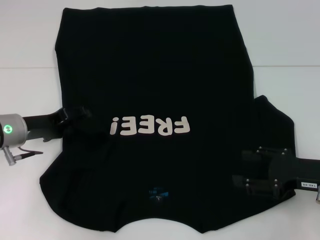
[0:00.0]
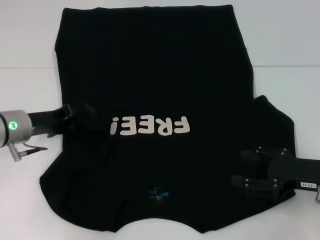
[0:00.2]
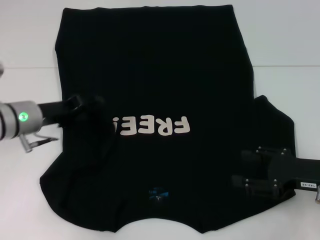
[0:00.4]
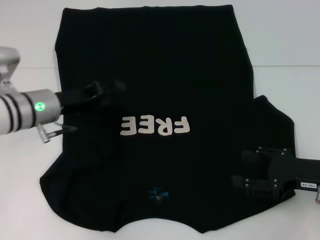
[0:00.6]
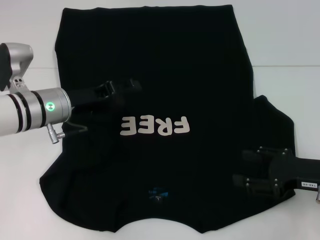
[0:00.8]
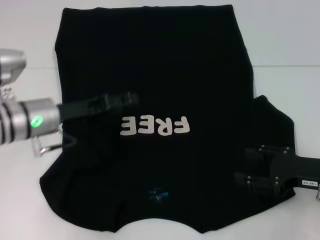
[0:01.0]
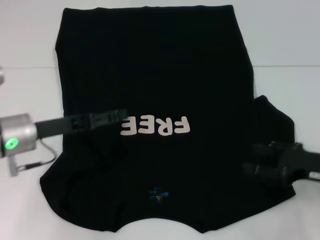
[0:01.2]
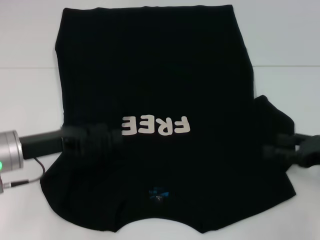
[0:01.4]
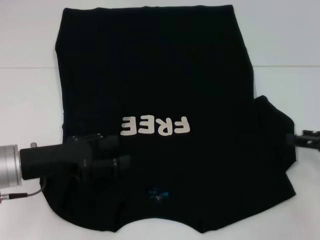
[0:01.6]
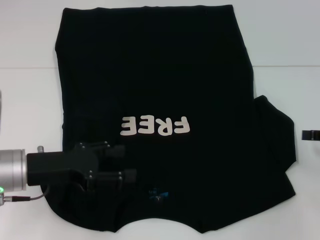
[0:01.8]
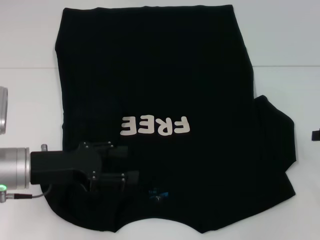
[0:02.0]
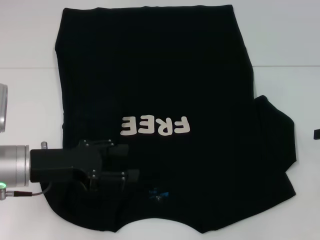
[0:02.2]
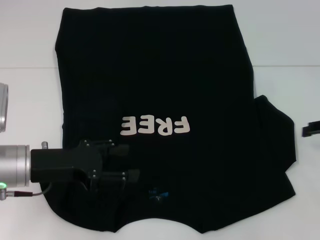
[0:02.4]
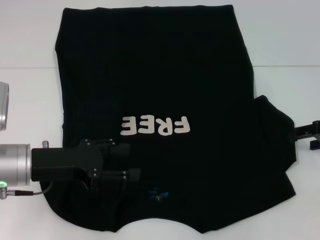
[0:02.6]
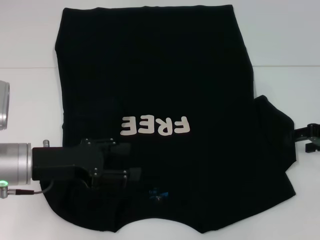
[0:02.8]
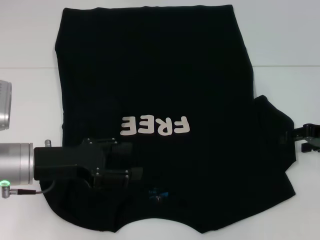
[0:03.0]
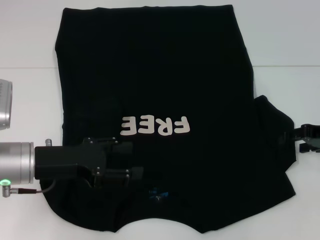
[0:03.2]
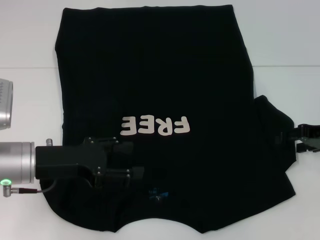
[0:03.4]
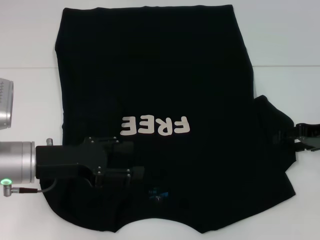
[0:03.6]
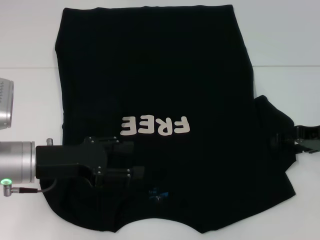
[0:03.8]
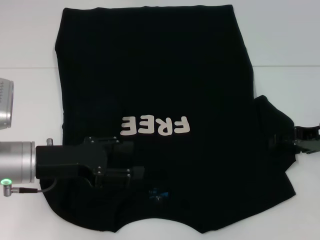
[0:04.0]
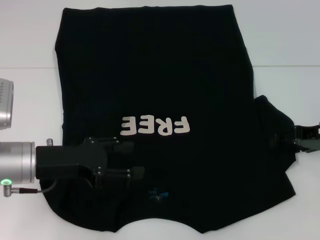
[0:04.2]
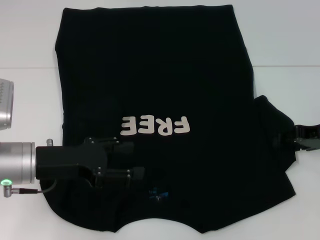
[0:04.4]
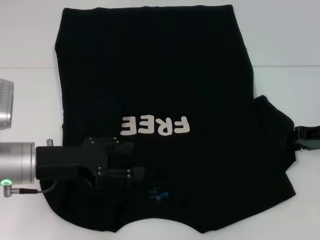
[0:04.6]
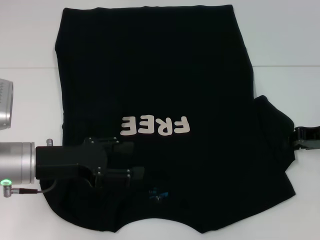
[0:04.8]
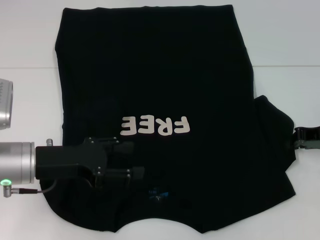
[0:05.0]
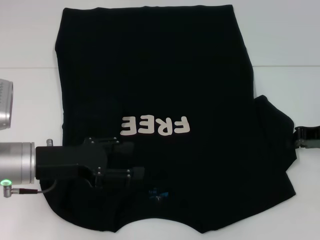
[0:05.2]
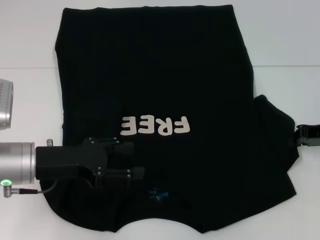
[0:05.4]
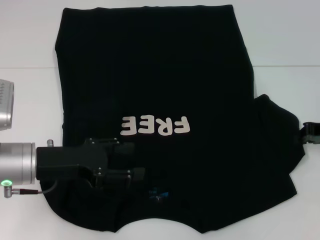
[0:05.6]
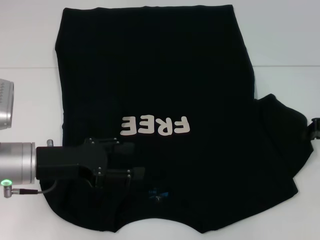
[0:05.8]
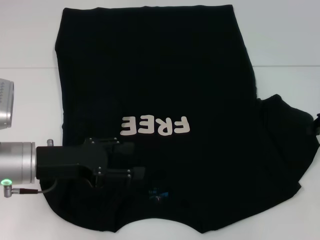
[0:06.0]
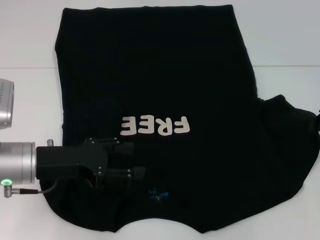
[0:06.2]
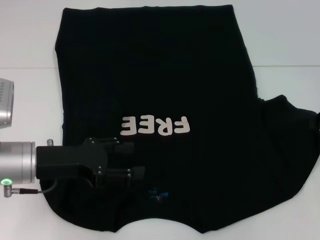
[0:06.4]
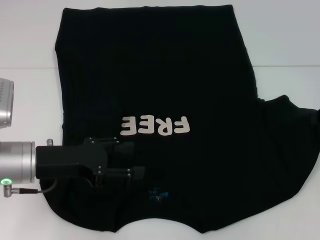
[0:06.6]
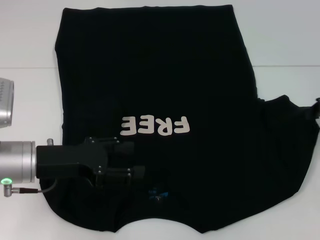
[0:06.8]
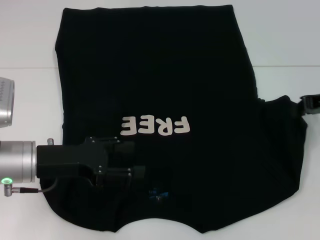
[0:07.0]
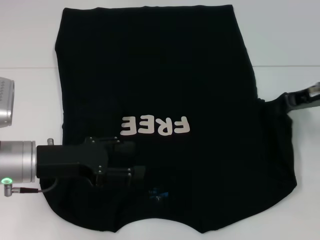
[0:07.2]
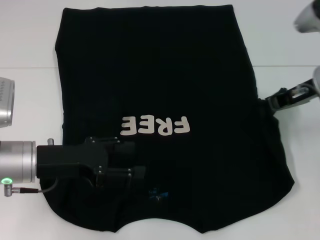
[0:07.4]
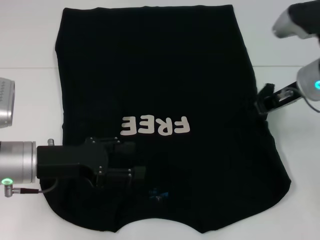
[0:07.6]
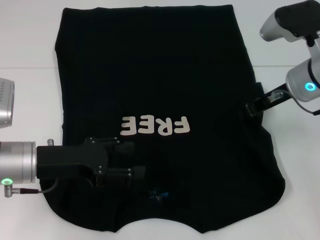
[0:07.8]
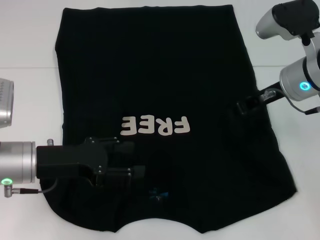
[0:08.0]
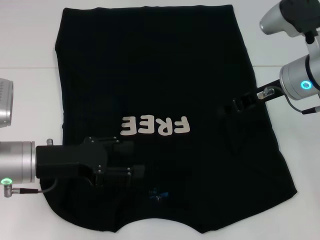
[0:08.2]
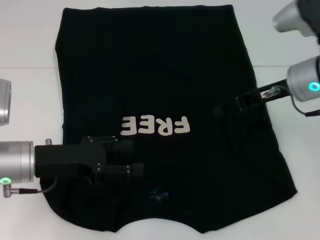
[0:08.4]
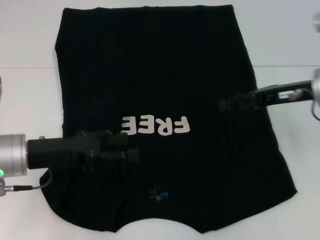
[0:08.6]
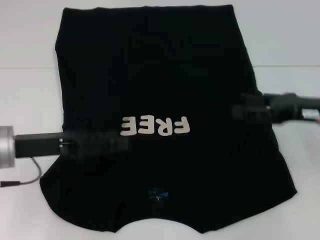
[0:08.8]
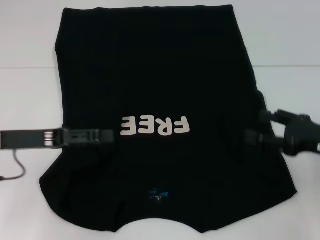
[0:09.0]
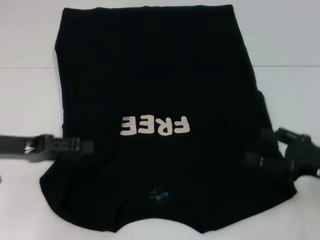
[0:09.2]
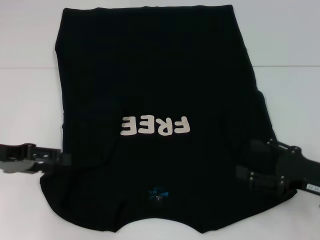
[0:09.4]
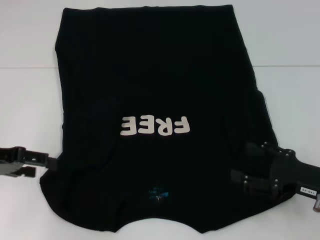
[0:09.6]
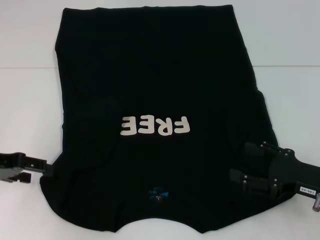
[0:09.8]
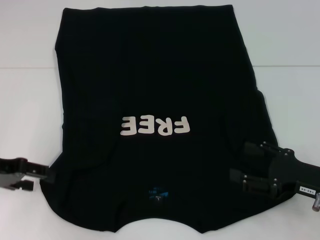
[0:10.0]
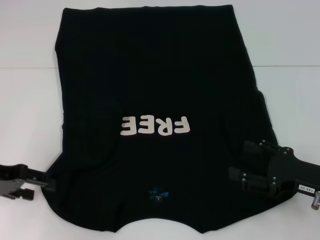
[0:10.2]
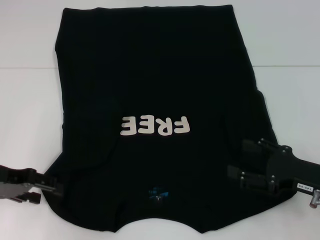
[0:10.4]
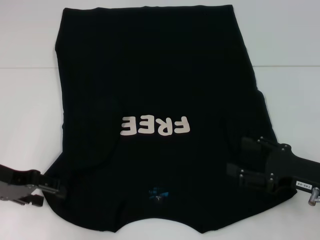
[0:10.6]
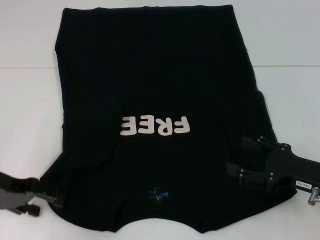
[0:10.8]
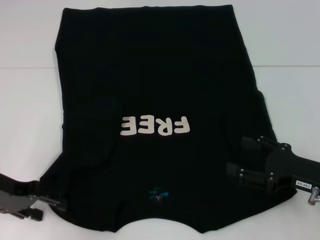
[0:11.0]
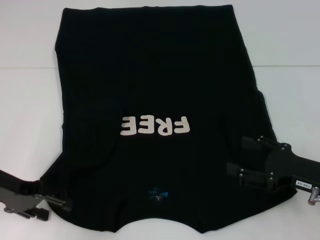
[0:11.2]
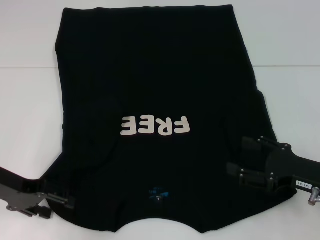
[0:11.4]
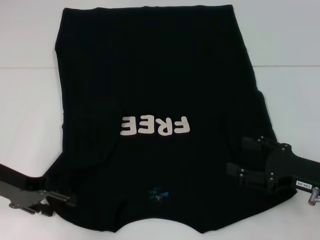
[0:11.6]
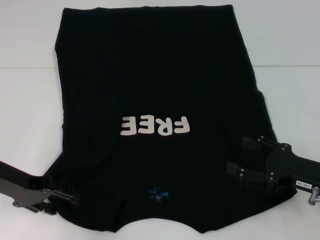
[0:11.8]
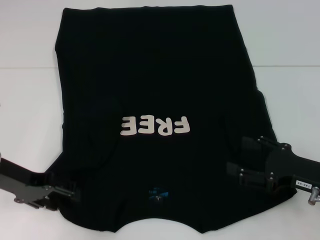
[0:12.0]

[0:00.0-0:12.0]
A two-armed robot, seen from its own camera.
Step, 0:01.4 to 0:08.4: Fold the bottom right sleeve with your right hand.
0:00.0 to 0:01.6: The right gripper shifts approximately 5 cm to the right; the left gripper shifts approximately 5 cm backward.
0:01.6 to 0:03.0: The right gripper moves forward, some 5 cm.
0:03.0 to 0:04.4: There are only small adjustments of the grippers.
0:04.4 to 0:06.0: The right gripper closes up.
0:06.0 to 0:07.6: The right gripper goes about 10 cm to the left.
0:07.6 to 0:09.0: The left gripper moves approximately 5 cm; the right gripper moves backward, to the right and downward, about 15 cm, and opens.
0:09.0 to 0:10.4: The right gripper changes place by roughly 5 cm.
0:10.4 to 0:12.0: The grippers make only small movements.

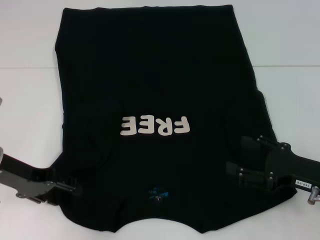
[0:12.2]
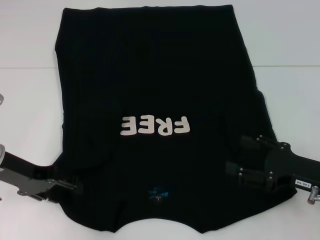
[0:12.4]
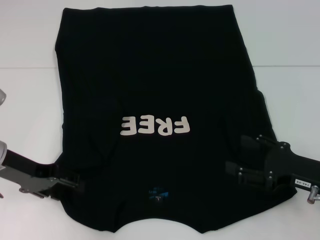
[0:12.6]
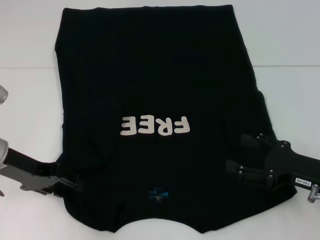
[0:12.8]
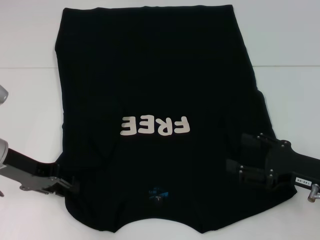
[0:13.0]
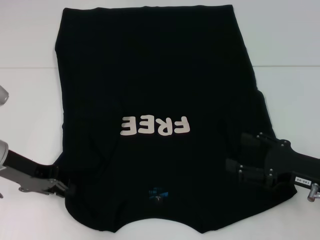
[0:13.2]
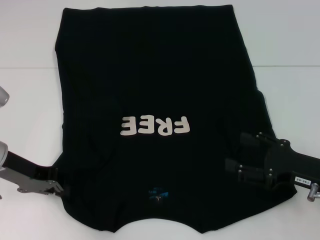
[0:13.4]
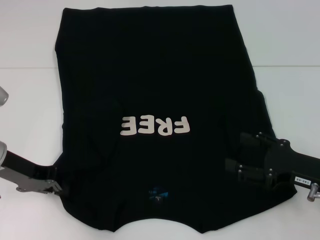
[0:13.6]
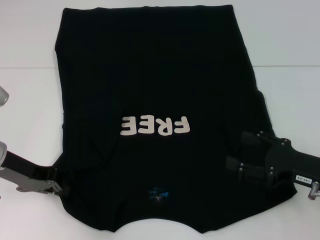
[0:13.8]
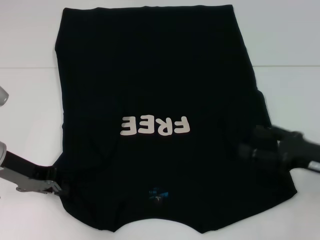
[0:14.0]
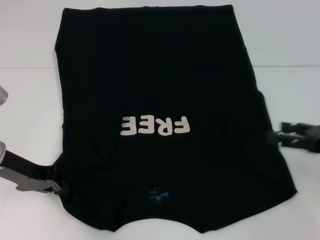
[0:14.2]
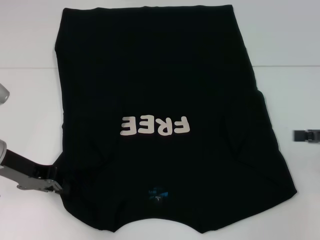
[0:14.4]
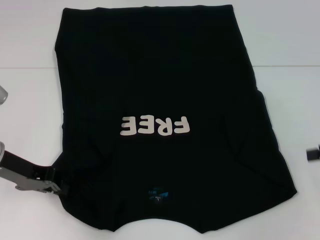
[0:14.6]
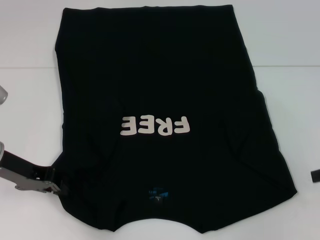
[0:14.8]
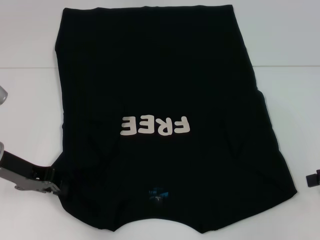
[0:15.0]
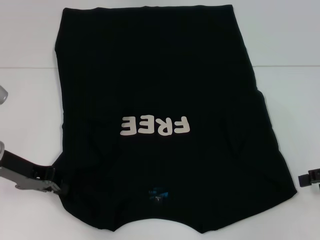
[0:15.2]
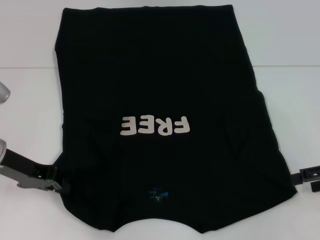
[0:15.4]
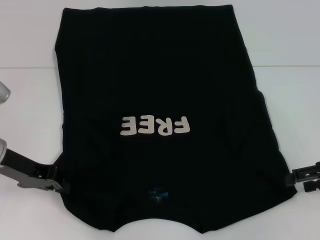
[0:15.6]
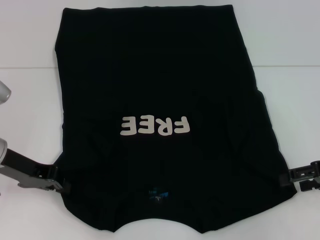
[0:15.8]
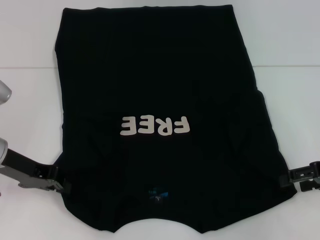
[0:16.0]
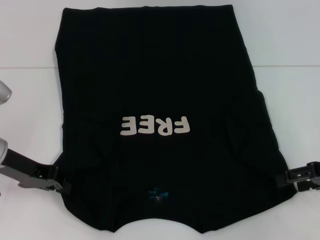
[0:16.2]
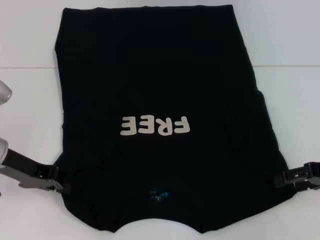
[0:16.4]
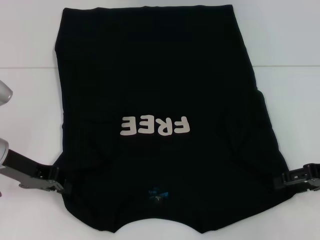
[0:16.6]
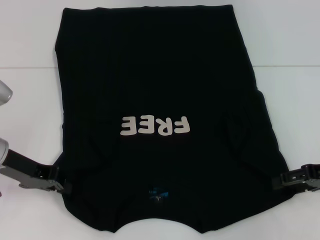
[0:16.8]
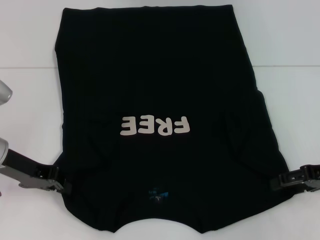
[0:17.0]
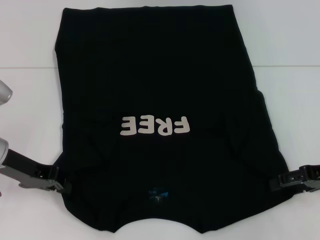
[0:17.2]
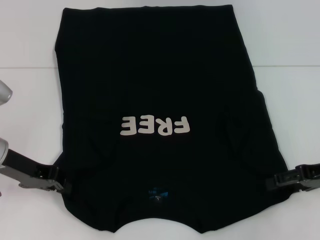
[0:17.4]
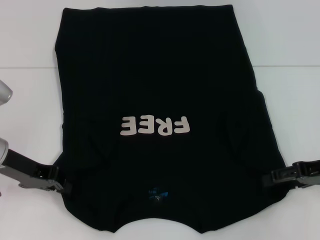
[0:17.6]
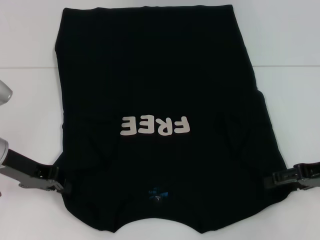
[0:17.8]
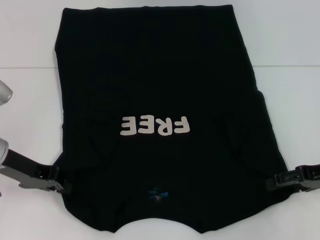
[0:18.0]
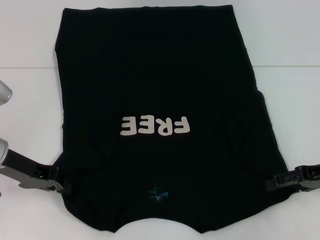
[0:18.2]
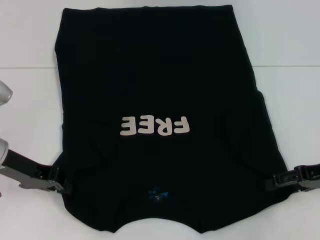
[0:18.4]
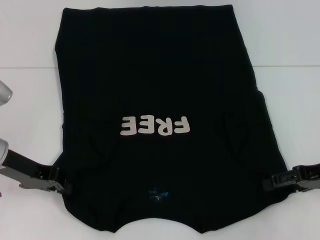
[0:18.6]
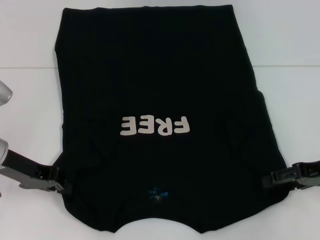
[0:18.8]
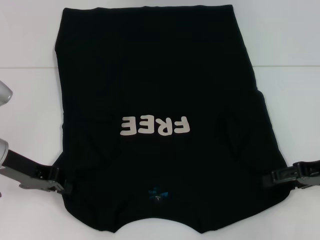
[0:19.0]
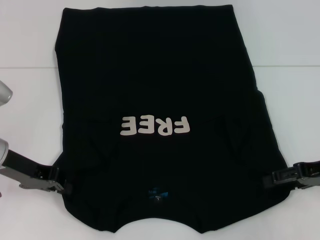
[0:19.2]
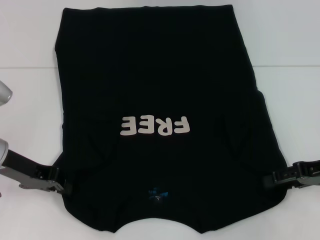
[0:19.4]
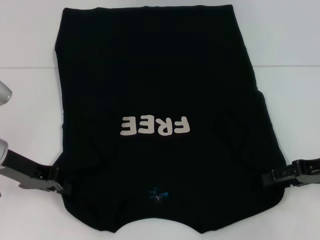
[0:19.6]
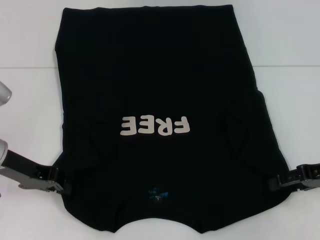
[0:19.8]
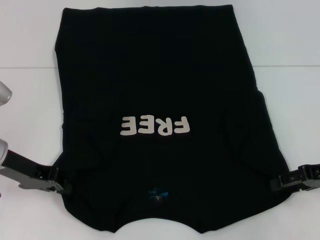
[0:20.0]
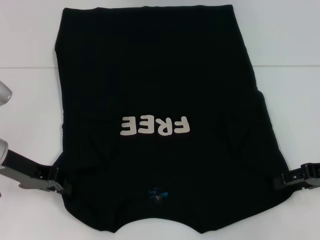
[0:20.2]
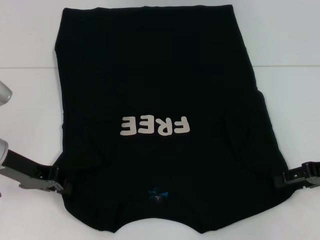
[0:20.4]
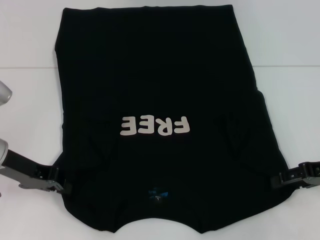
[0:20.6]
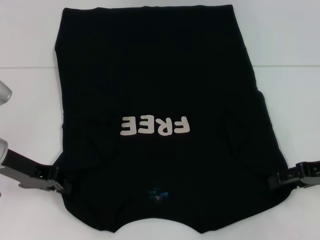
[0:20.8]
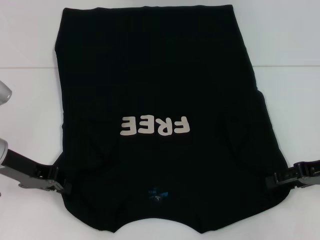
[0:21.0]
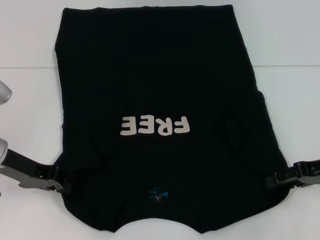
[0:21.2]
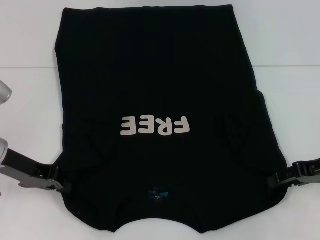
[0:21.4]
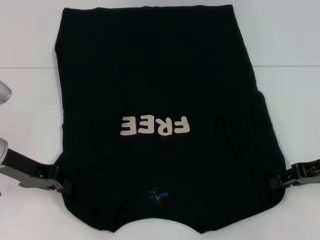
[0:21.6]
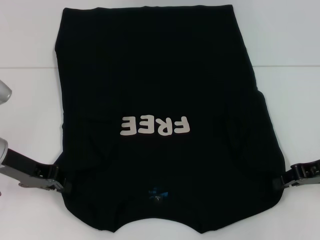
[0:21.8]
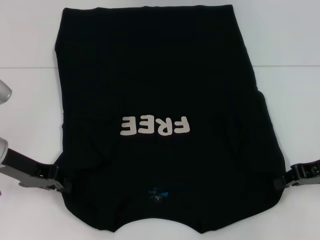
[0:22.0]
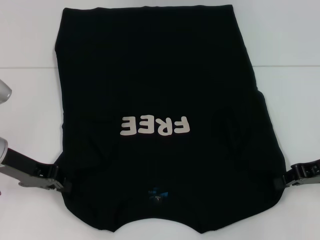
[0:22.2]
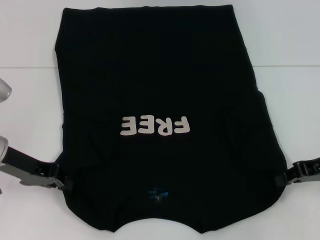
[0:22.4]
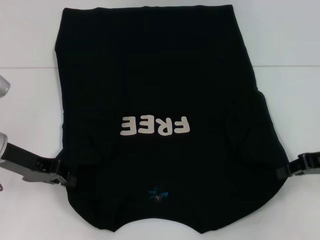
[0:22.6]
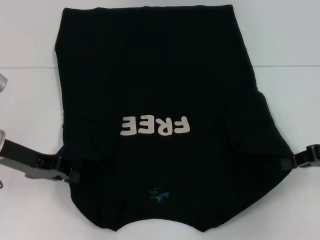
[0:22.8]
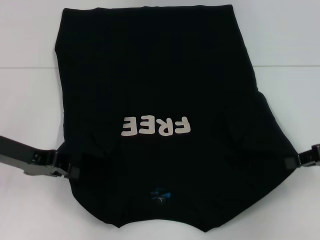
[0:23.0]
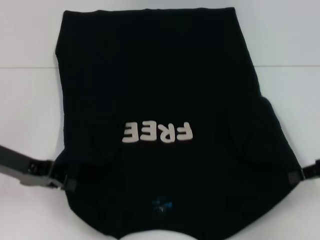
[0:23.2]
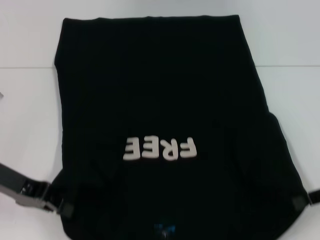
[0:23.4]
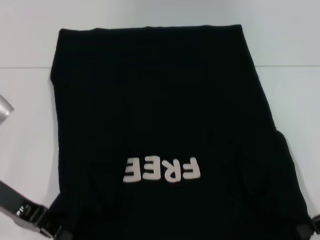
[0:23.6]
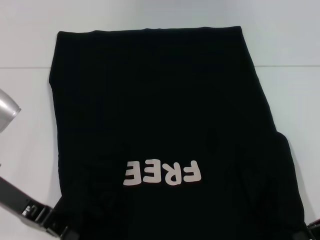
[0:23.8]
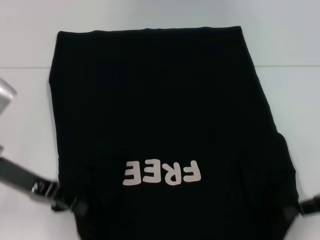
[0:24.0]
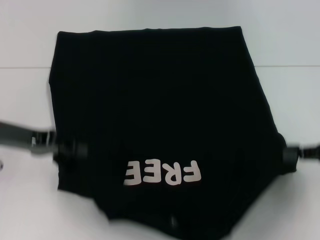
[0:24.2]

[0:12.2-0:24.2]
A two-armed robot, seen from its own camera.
Step, 0:13.8 to 0:21.8: Grab the bottom right corner with your right hand.
0:12.2 to 0:13.8: The left gripper closes its fingers.
0:13.8 to 0:15.2: The right gripper moves to the right and upward, roughly 10 cm.
0:15.2 to 0:16.6: The grippers stay close to where they were, moving slightly.
0:18.2 to 0:21.2: Both grippers stay about where they are.
0:21.2 to 0:22.6: The right gripper closes its fingers.
